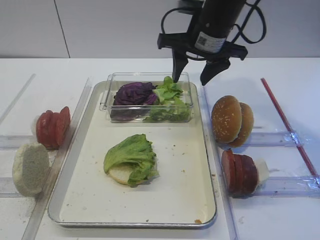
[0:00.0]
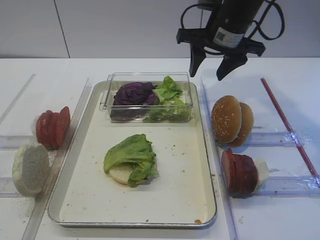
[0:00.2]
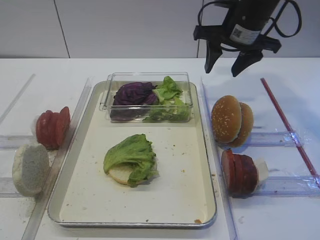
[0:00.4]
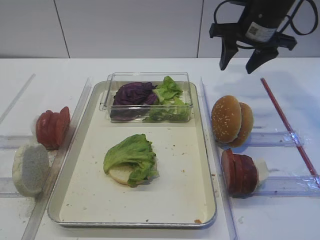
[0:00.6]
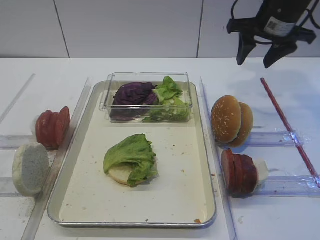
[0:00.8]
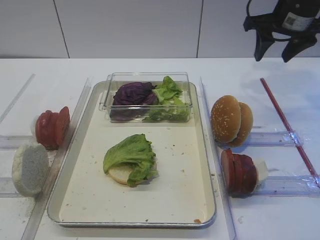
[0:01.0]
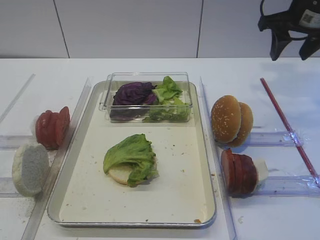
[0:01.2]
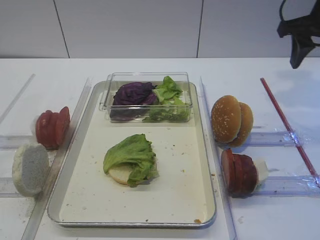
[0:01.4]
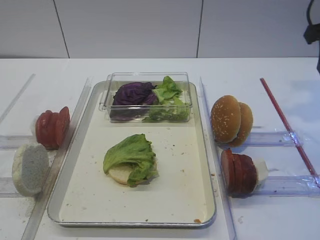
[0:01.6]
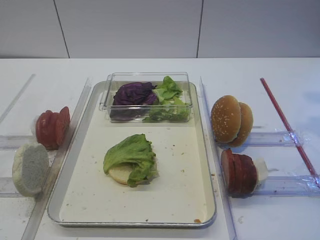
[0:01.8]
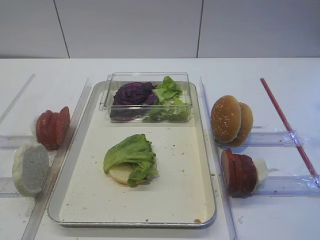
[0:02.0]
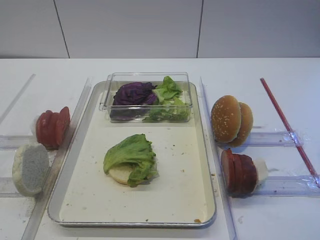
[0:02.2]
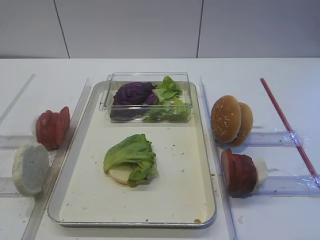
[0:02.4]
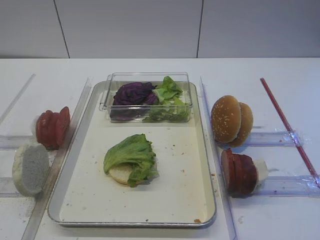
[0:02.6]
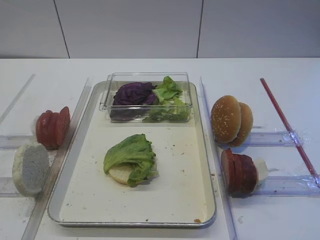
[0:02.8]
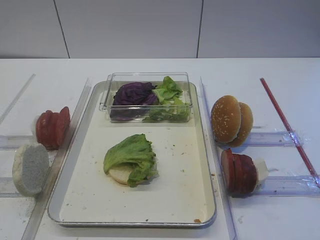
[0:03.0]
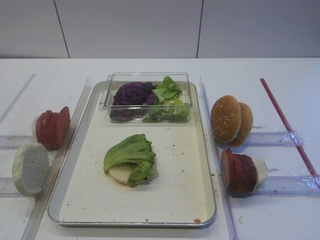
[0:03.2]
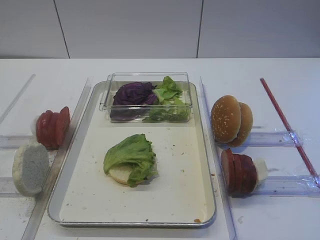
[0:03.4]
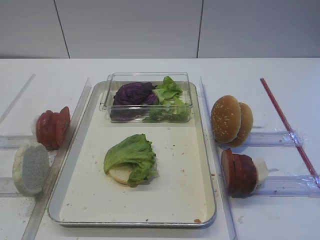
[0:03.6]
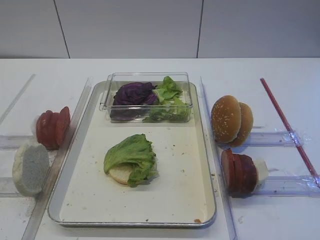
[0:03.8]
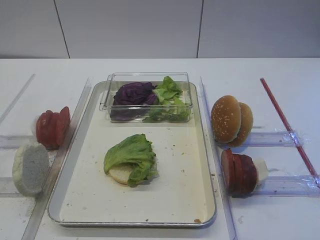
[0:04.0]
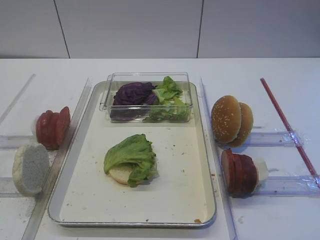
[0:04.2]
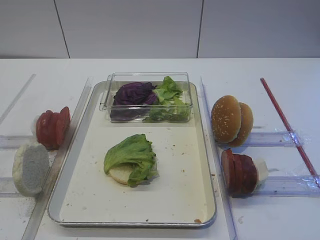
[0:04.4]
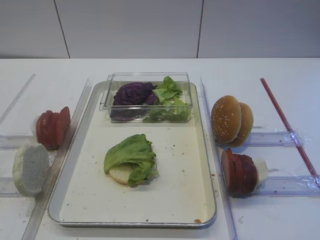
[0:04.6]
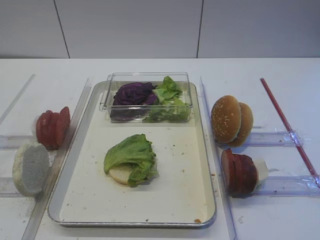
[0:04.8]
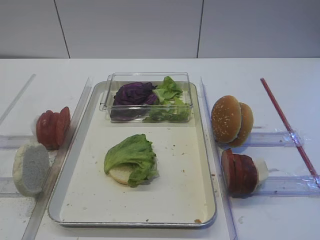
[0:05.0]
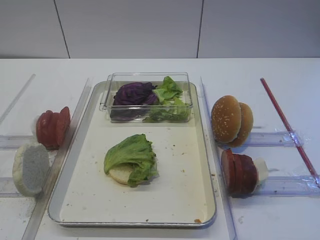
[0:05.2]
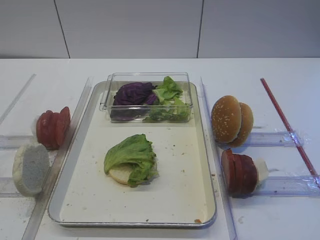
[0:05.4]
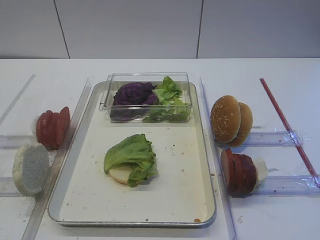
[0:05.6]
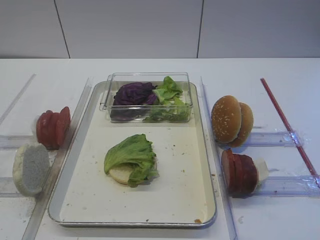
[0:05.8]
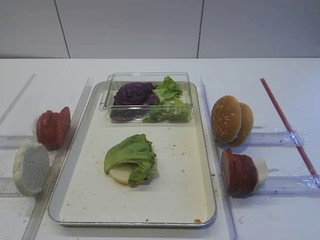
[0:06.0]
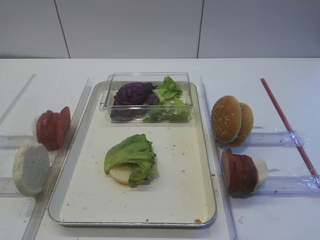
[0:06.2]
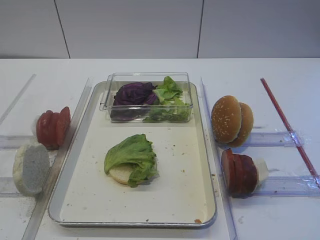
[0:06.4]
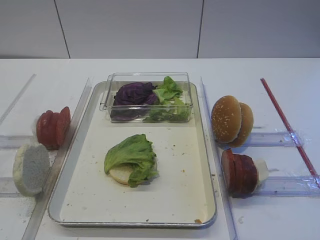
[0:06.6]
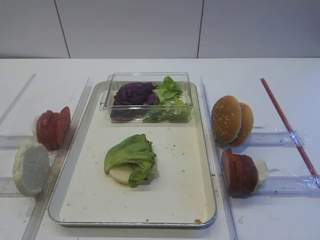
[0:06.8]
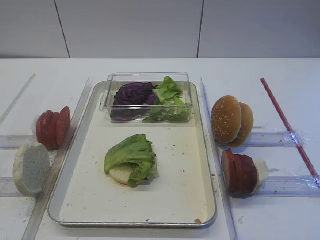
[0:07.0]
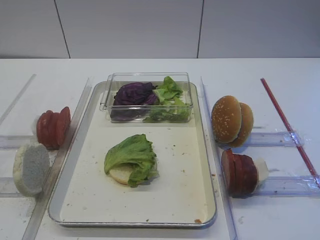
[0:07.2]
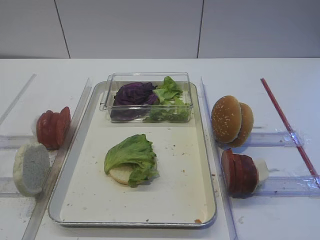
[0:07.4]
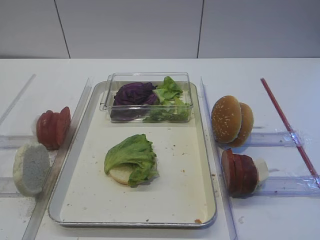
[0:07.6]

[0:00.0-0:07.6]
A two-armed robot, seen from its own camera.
0:00.0 to 0:01.6: The right gripper travels to the right by roughly 20 cm.
0:06.0 to 0:07.6: Both grippers stay about where they are.

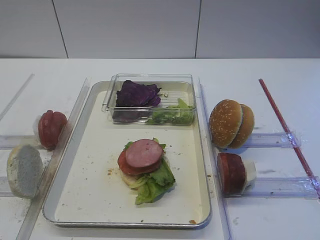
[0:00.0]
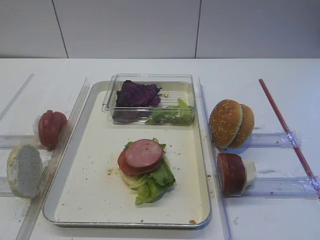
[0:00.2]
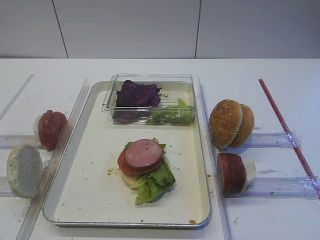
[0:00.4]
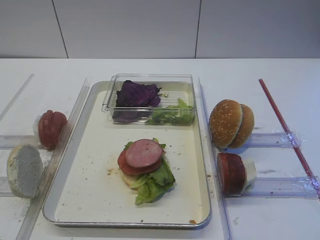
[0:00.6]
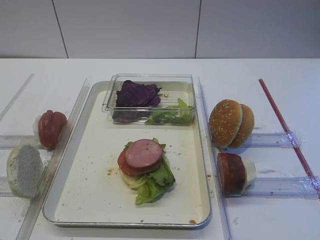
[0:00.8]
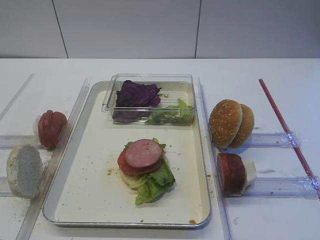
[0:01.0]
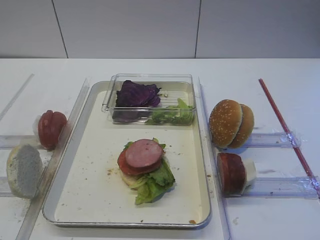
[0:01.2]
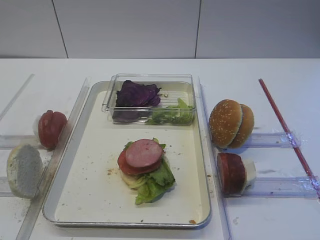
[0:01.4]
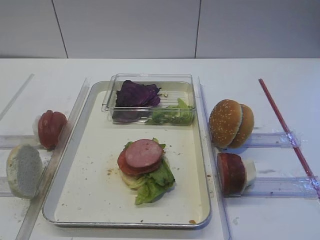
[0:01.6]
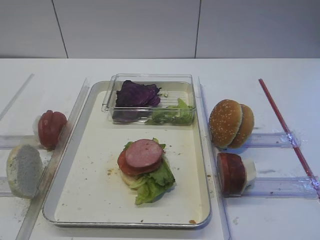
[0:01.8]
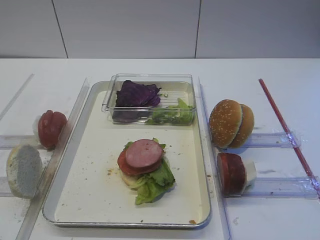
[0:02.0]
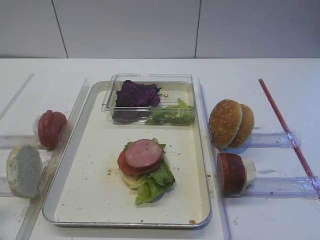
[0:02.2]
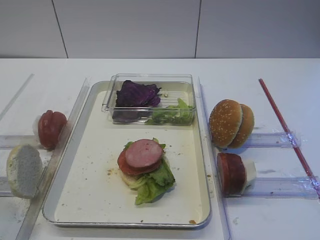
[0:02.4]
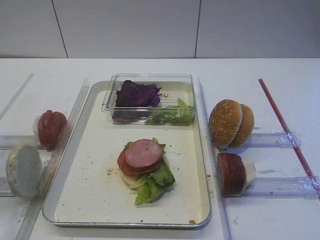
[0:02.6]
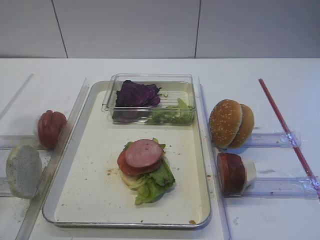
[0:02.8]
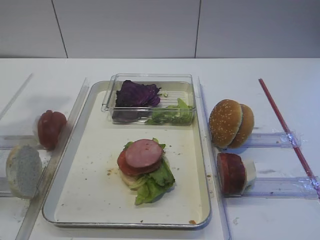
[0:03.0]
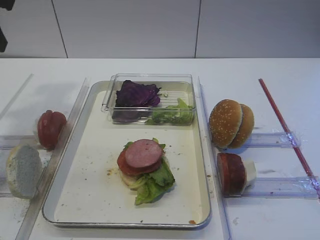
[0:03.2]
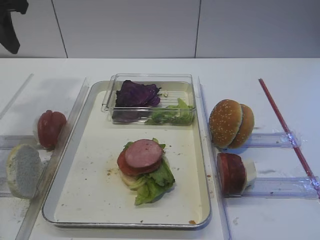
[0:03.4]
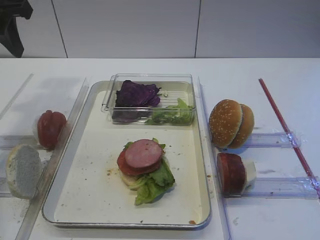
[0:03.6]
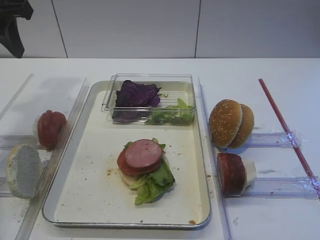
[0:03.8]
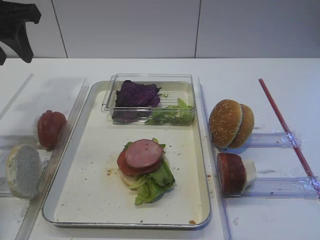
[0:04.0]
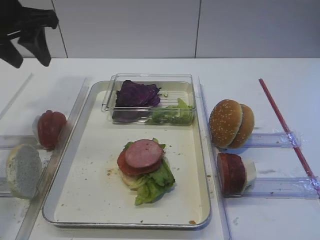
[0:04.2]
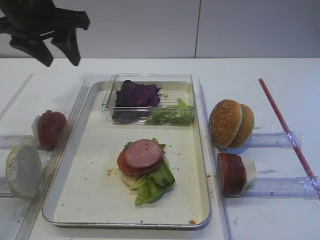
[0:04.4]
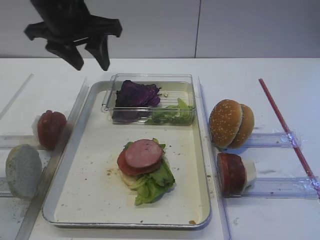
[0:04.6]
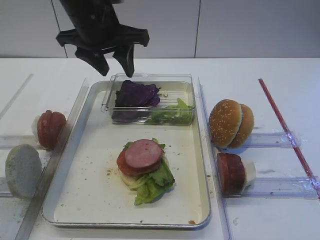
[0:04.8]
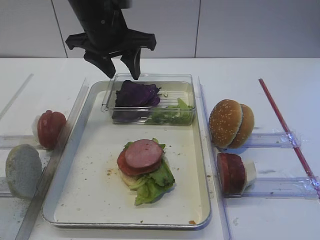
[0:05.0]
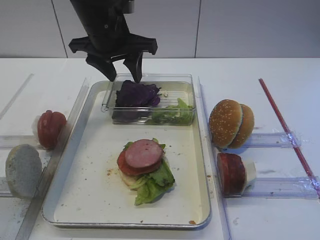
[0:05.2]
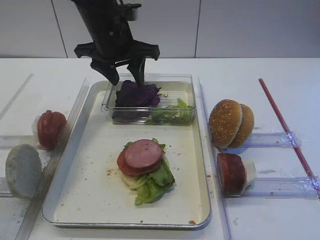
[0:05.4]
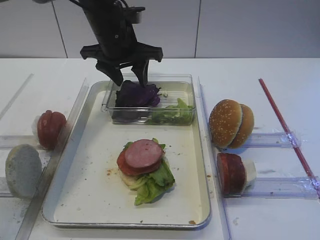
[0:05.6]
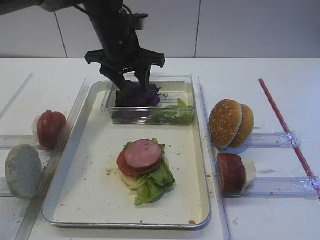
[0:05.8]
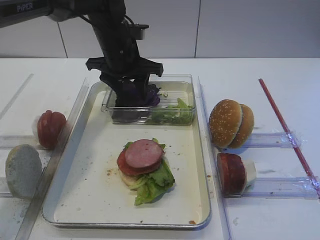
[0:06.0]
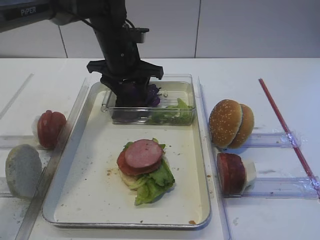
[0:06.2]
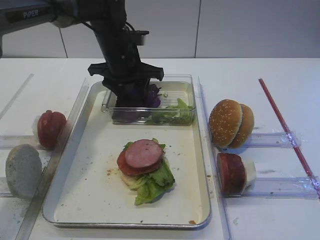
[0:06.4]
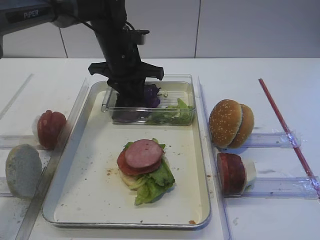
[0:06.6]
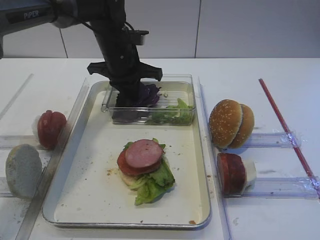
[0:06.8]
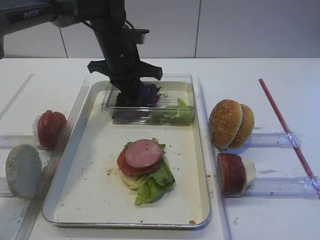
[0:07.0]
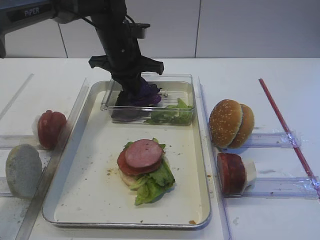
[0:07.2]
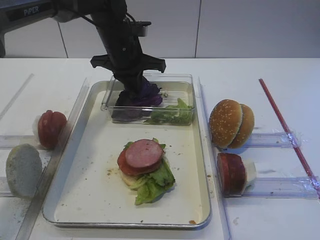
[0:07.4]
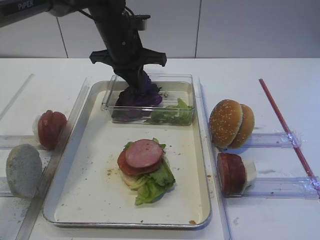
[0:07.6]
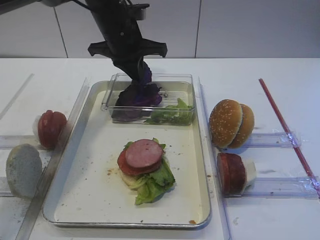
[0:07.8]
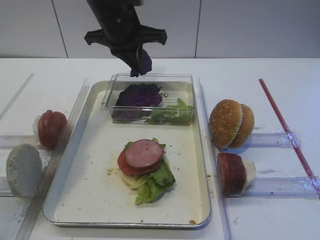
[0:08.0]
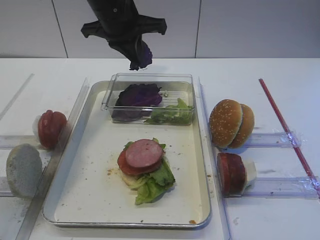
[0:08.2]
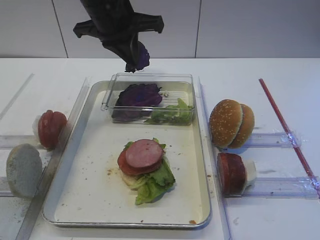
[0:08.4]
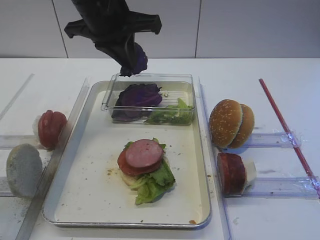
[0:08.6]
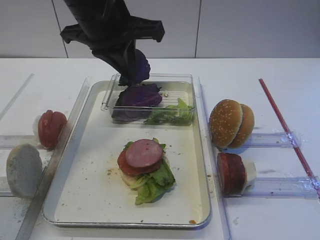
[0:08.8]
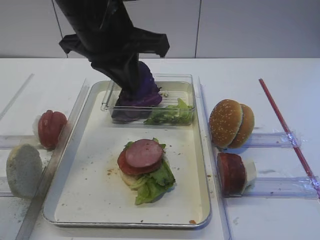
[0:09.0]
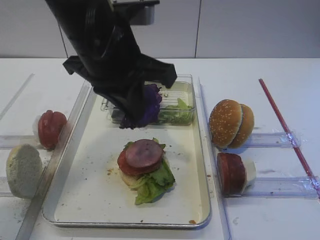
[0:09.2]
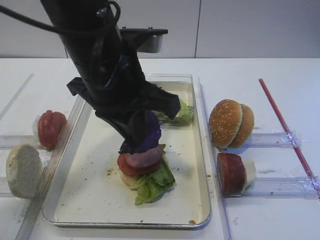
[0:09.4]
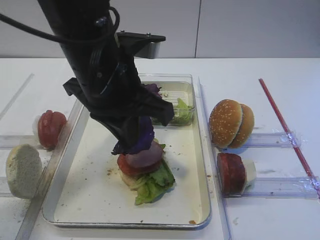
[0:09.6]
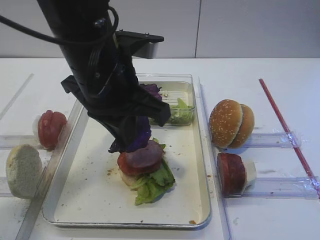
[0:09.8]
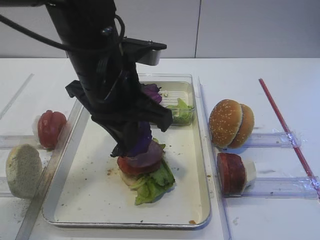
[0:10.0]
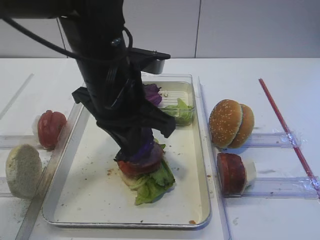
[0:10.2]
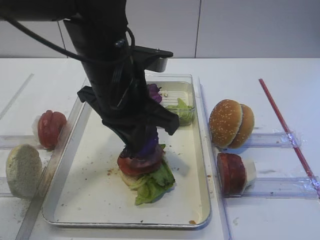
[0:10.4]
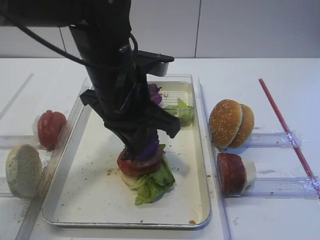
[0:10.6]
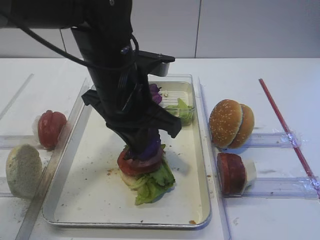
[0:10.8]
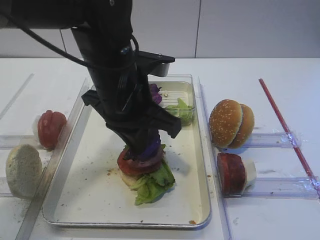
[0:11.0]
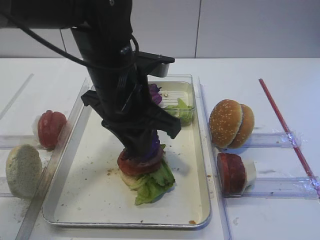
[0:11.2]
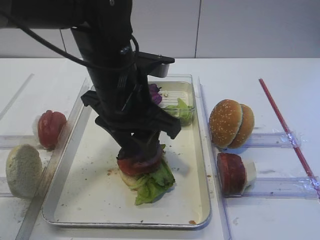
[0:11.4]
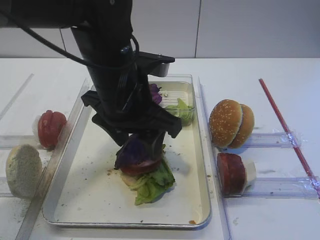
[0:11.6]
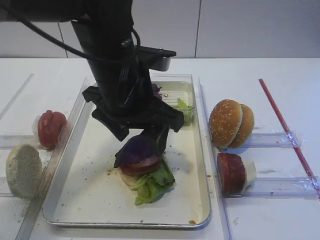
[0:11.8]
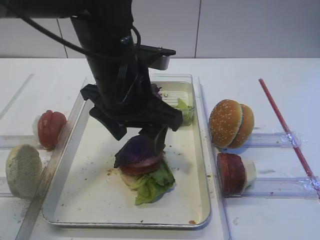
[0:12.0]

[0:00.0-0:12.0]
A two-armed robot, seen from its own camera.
Step, 0:00.0 to 0:07.8: Pick up the purple cabbage with the left gripper.
0:01.6 to 0:03.0: The left gripper is displaced forward and upward by some 25 cm.
0:03.0 to 0:04.4: The left gripper travels forward and to the right by about 15 cm.
0:04.4 to 0:06.0: The left gripper shifts roughly 15 cm to the right, downward and forward.
0:06.0 to 0:07.6: The left gripper closes its fingers.
0:07.6 to 0:09.0: The left gripper shifts roughly 15 cm backward and upward.
0:09.0 to 0:10.4: The left gripper is displaced downward by approximately 5 cm.
0:10.4 to 0:12.0: The left gripper opens up.

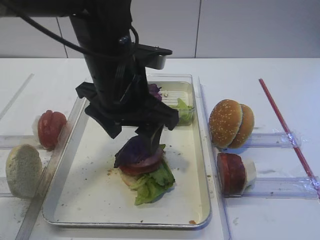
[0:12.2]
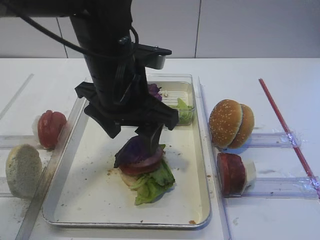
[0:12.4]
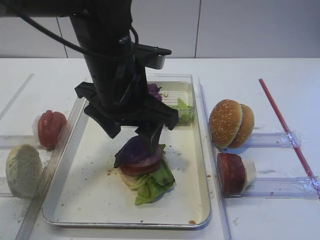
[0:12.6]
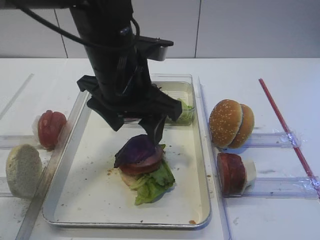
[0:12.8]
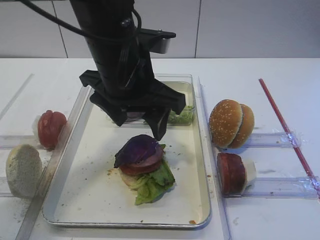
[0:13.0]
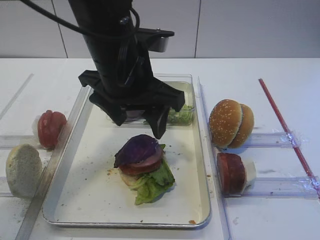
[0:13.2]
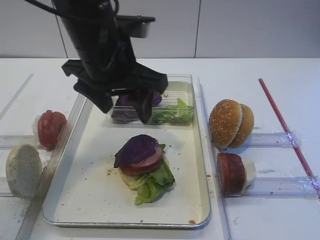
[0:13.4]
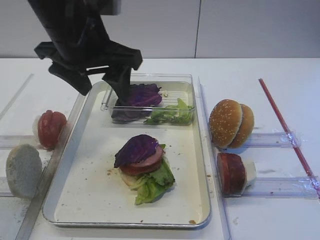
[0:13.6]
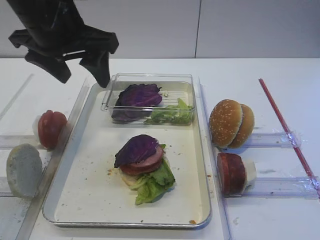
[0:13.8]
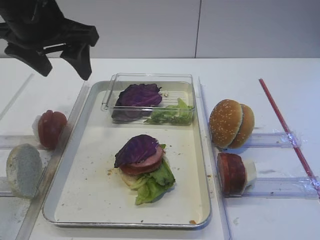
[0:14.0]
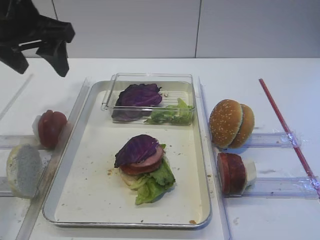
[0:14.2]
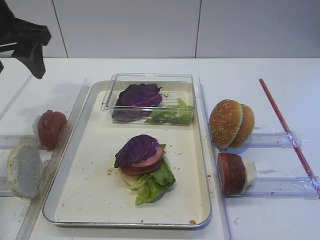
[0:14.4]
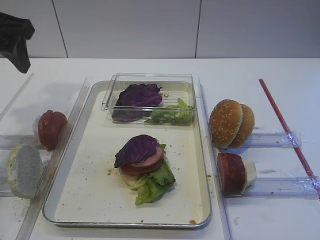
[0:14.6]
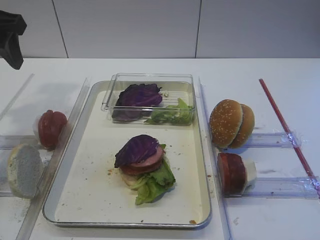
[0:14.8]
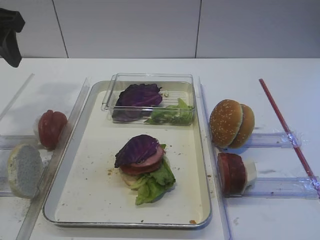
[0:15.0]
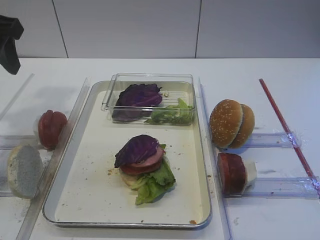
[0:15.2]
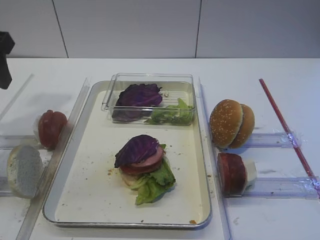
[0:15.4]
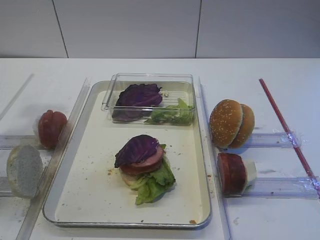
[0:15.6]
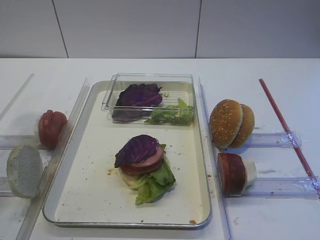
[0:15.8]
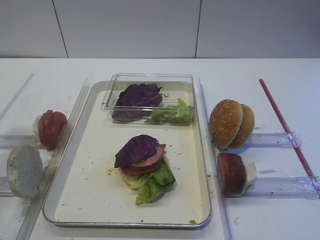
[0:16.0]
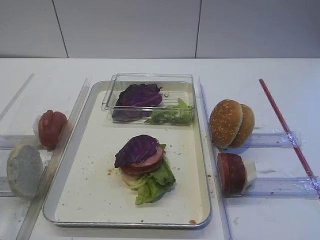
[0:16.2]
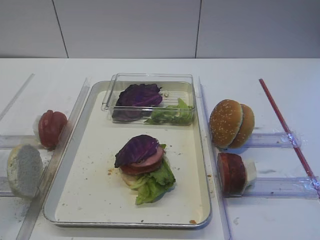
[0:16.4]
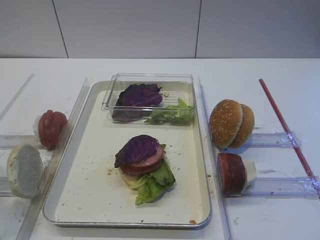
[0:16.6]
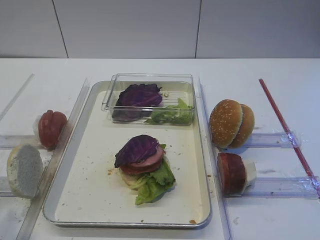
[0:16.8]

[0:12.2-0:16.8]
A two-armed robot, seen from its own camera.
0:12.2 to 0:13.8: The left gripper shifts roughly 10 cm to the left and upward.
0:13.8 to 0:15.2: The left gripper travels to the left by some 10 cm.
0:15.2 to 0:16.8: The left gripper heads backward, covering approximately 25 cm.
